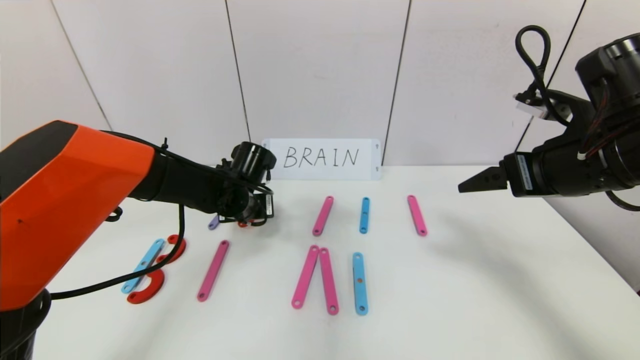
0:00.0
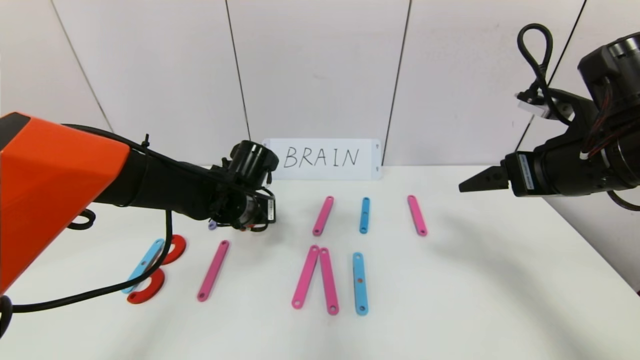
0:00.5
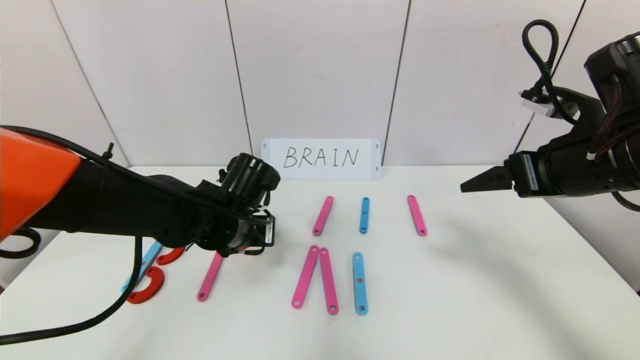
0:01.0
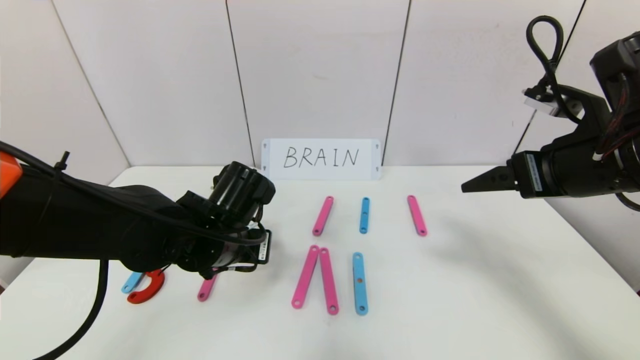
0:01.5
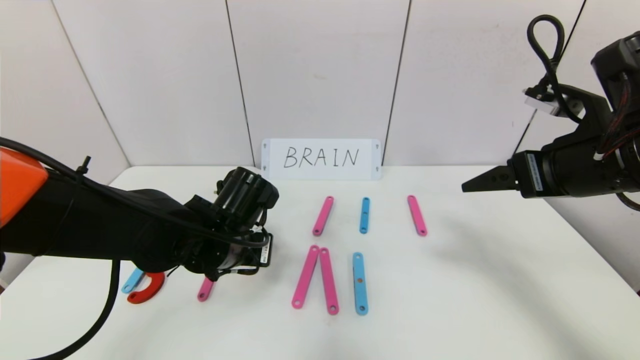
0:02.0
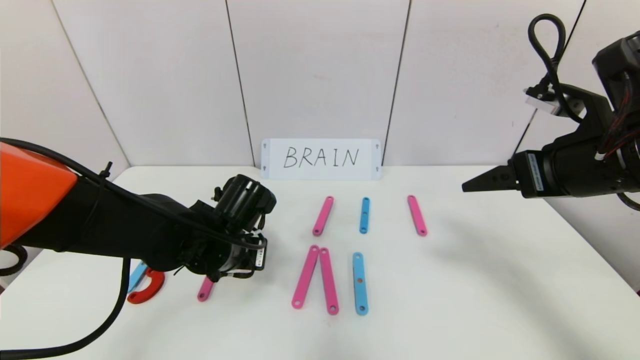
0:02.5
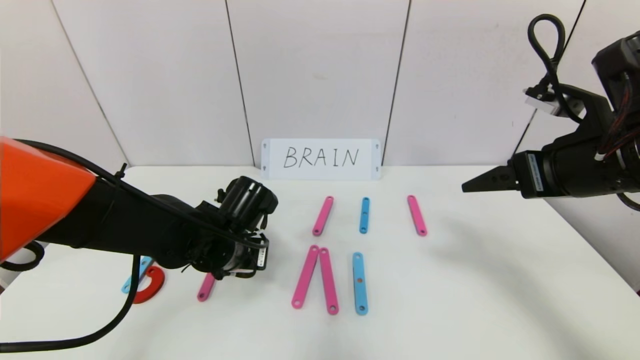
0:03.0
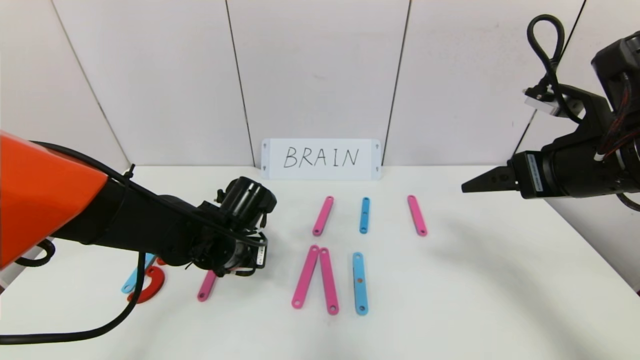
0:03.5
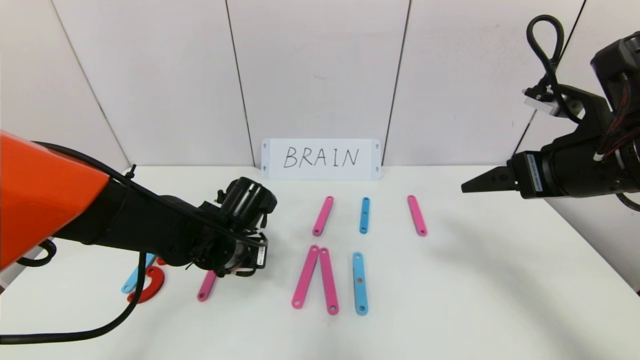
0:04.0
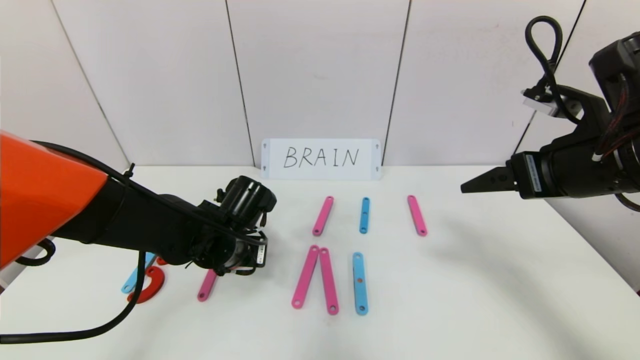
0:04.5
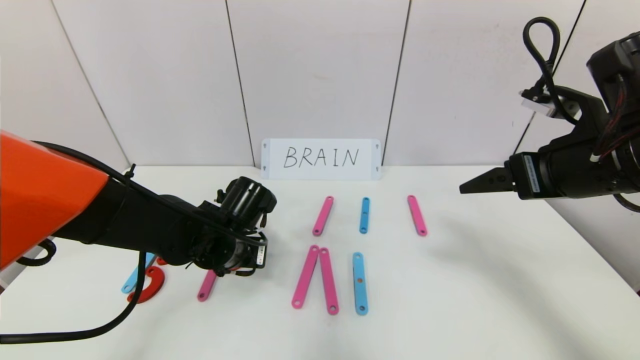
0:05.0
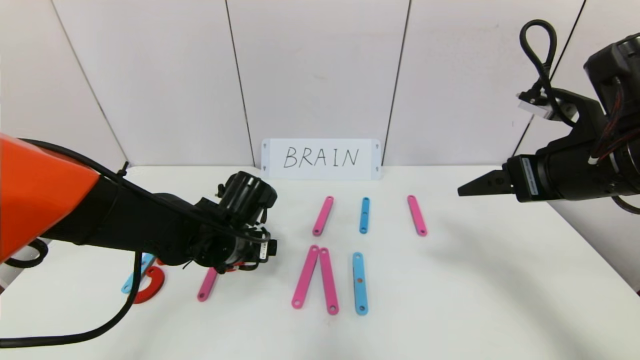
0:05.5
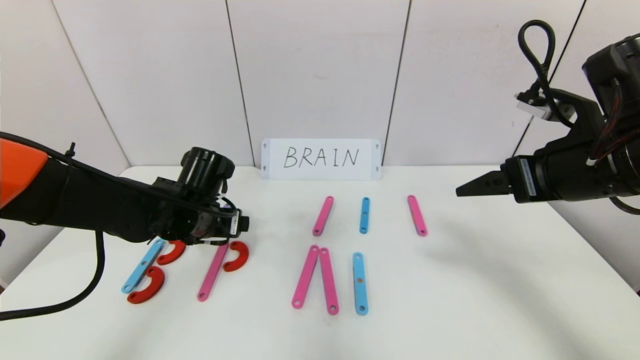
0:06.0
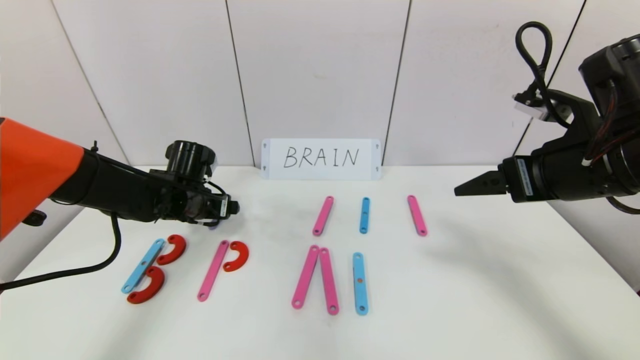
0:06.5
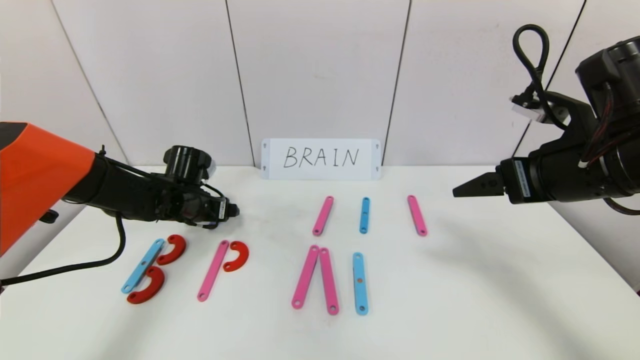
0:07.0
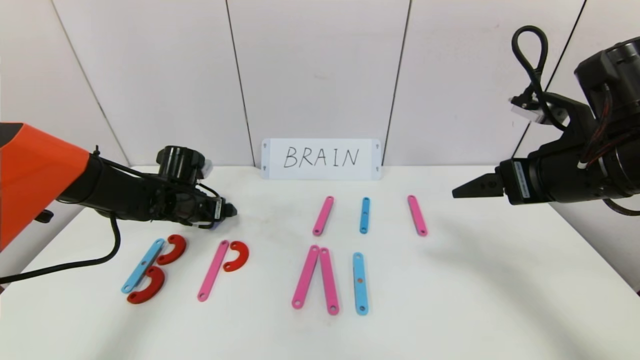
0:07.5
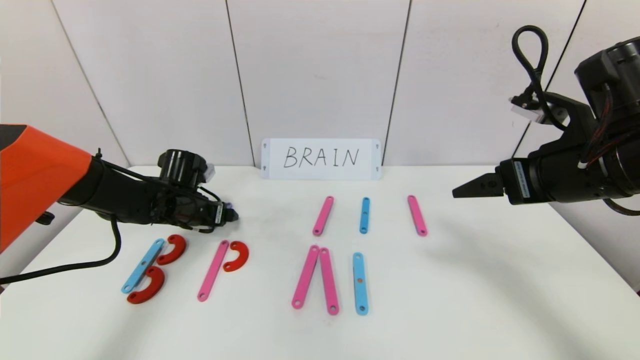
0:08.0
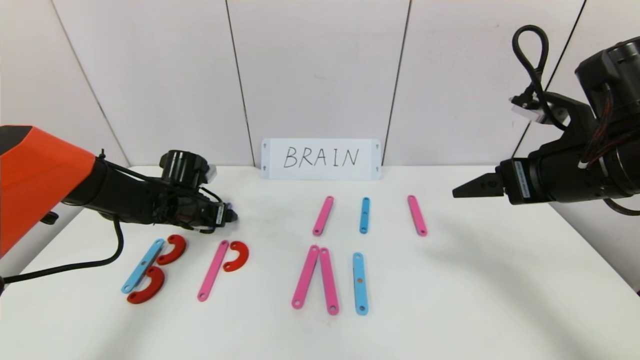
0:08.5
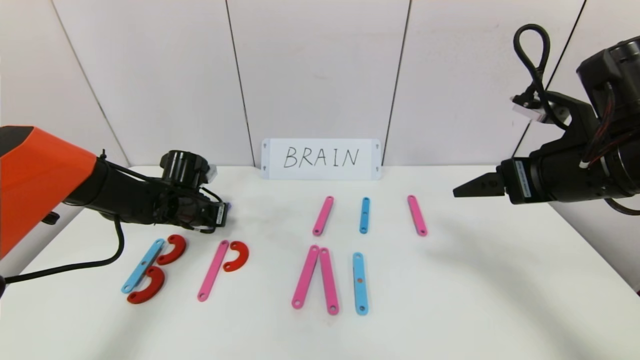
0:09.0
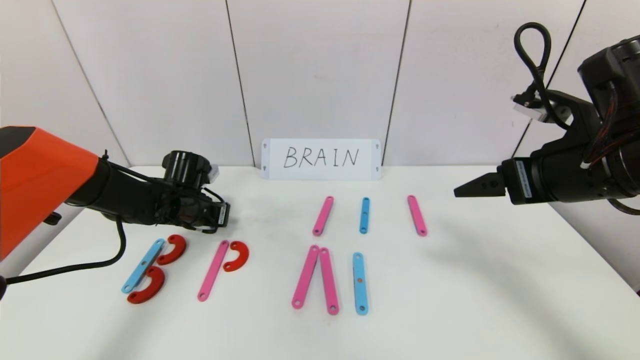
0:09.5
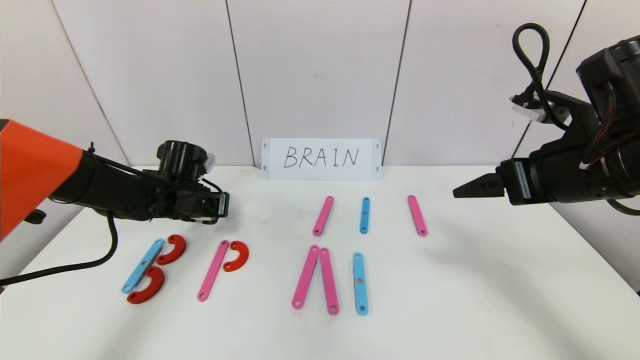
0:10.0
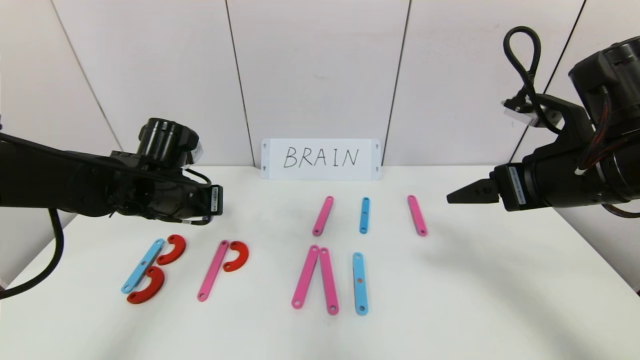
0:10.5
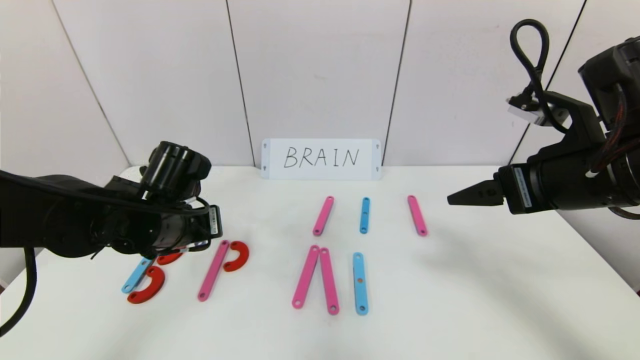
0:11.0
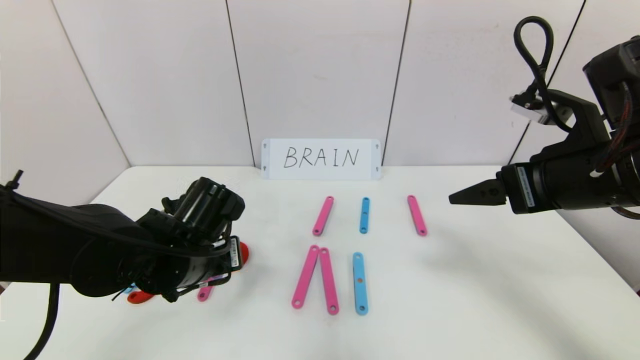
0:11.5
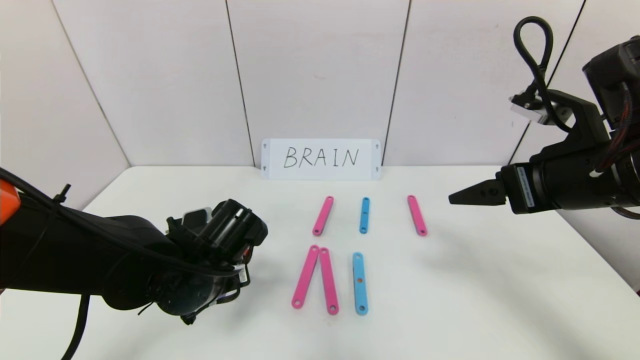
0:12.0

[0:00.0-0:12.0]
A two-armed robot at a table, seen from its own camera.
Task of the whole recording: rearrange the word baai as brain.
0:00.0 to 0:02.0: The left gripper shifts about 10 cm backward.
0:02.0 to 0:04.0: The grippers make only small movements.
0:04.0 to 0:06.0: The left gripper goes approximately 5 cm to the left, and opens.
0:06.0 to 0:08.0: The left gripper shifts about 10 cm forward and to the left.
0:08.0 to 0:10.0: The left gripper closes.
0:10.0 to 0:12.0: The left gripper heads backward and to the right, covering roughly 20 cm.

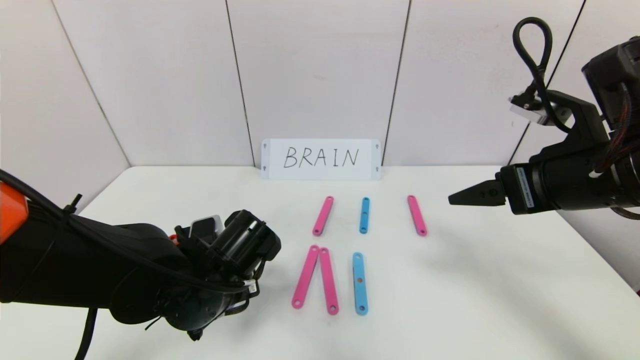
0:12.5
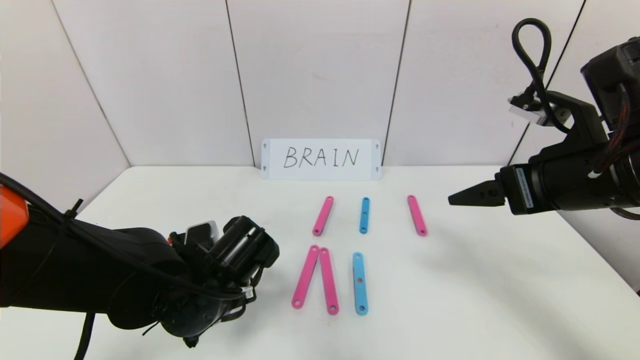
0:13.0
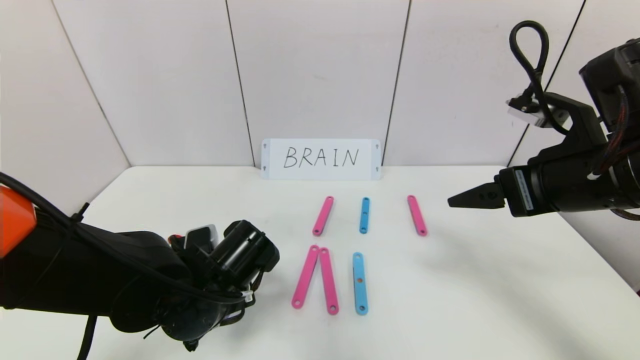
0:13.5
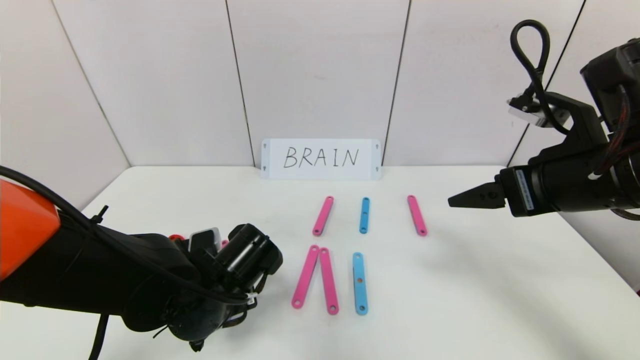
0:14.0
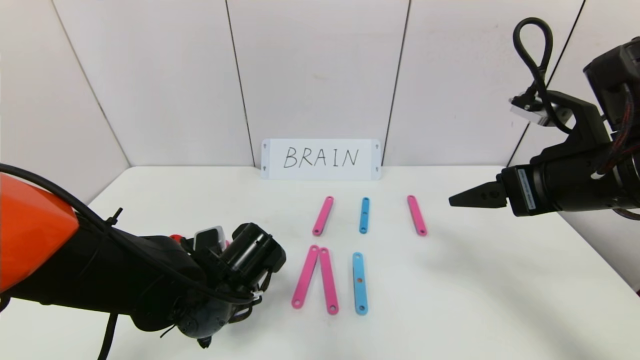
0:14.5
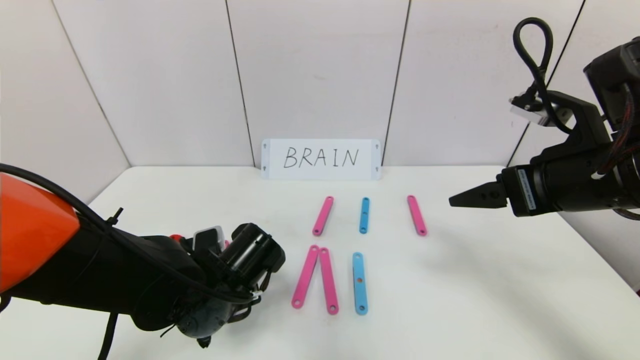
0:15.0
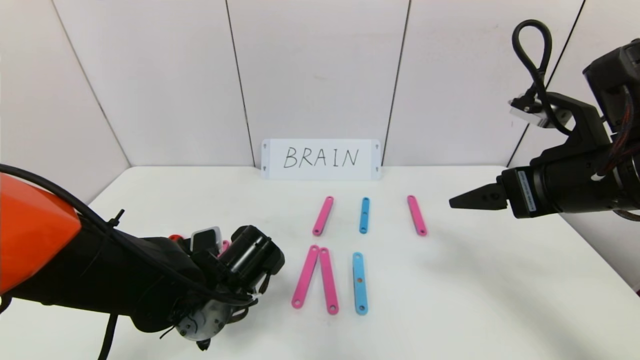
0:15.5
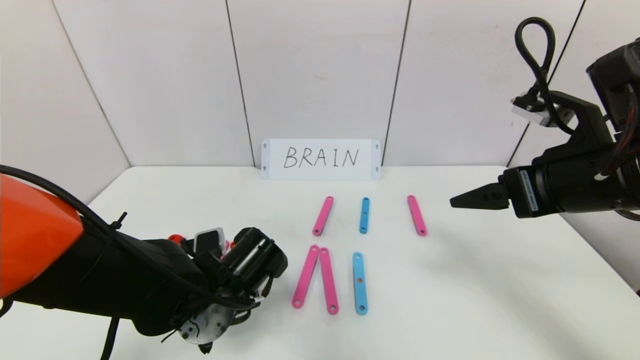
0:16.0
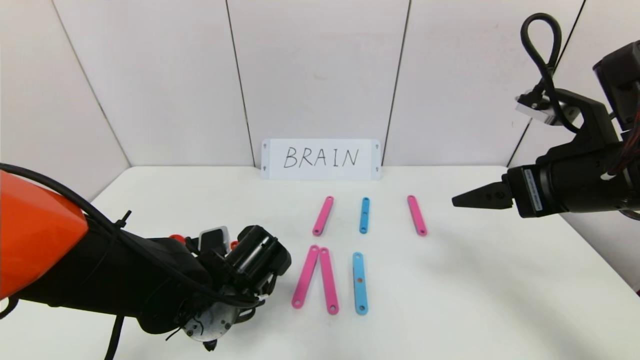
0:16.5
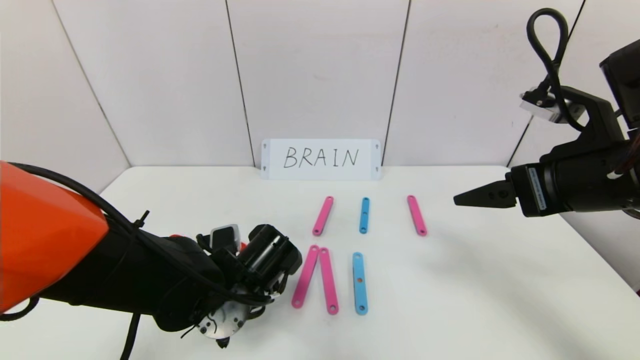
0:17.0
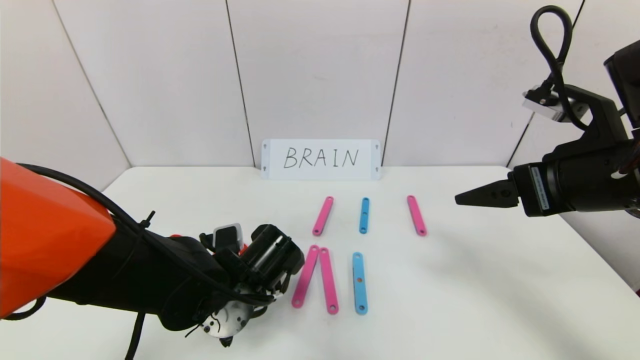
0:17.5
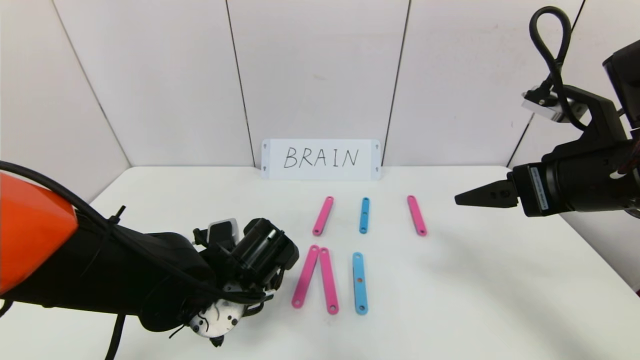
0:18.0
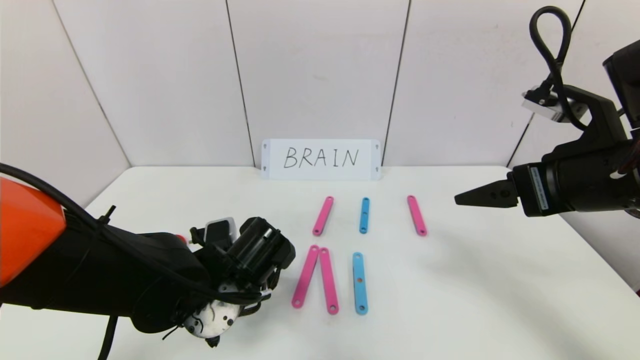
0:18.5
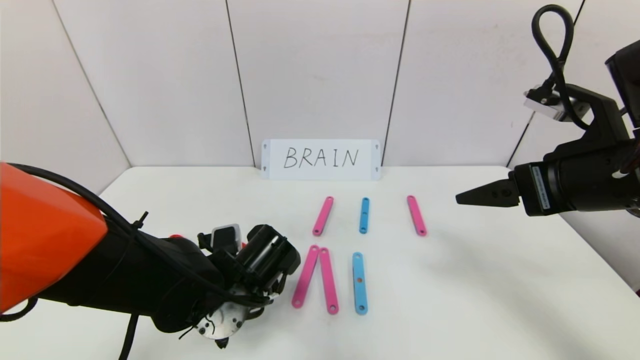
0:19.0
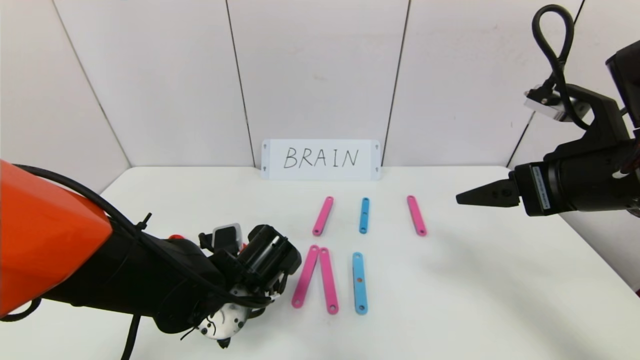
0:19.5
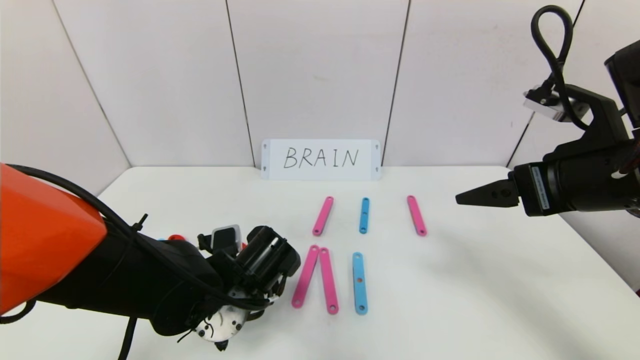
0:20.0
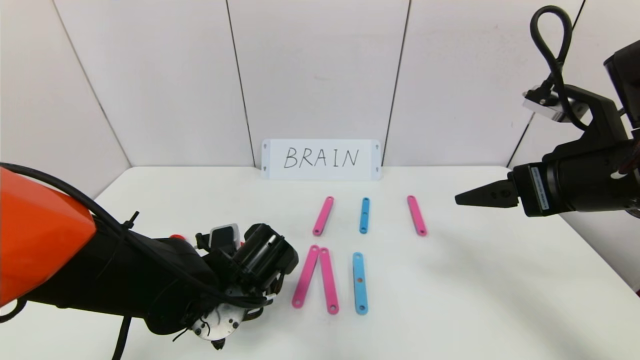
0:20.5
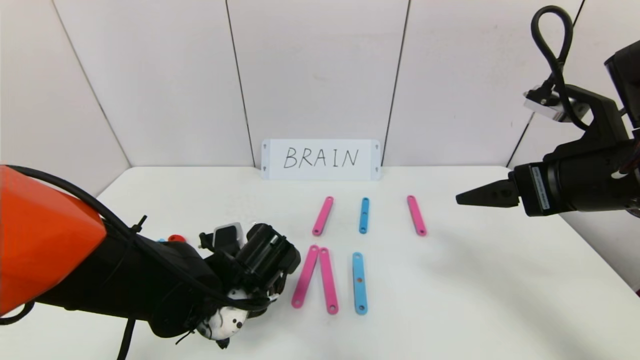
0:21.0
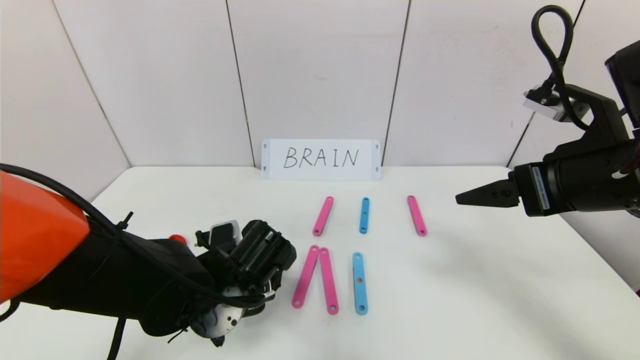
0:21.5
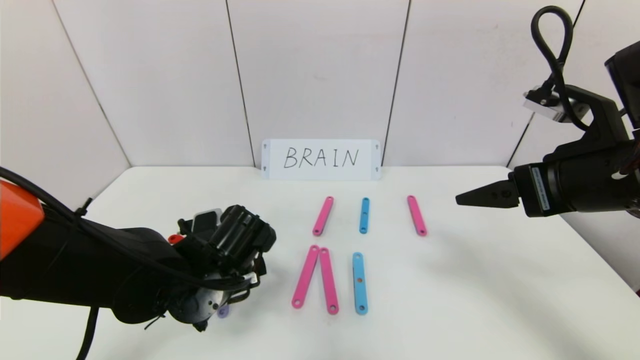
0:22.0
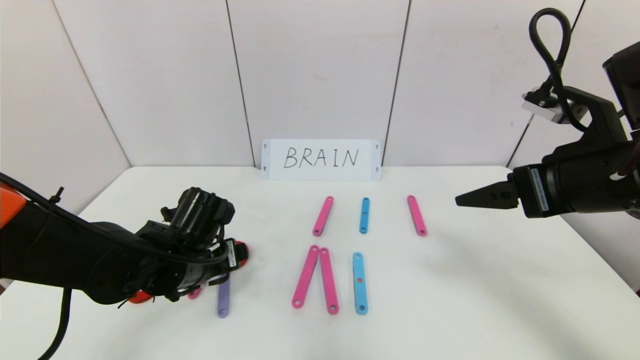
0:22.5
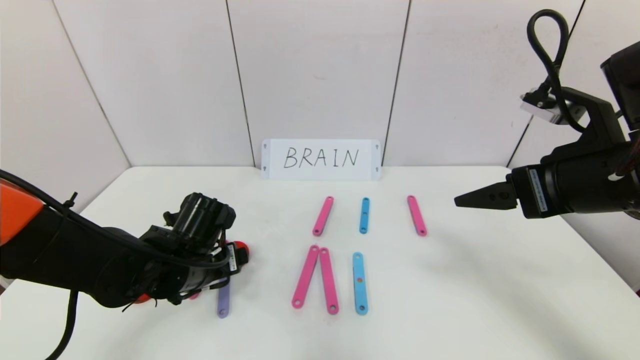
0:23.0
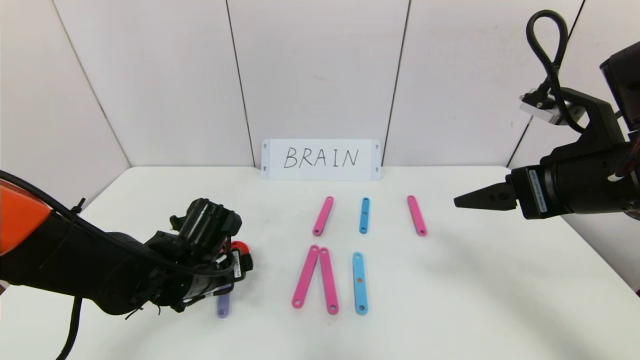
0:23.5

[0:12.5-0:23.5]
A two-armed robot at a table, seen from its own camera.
Task of the whole recording: rearrange the word baai as brain.
Step, 0:12.5 to 0:21.5: Place the character R between first character B and third character A.
0:12.5 to 0:14.5: The grippers make only small movements.
0:14.5 to 0:16.0: Both grippers stay put.
0:16.0 to 0:18.0: The left gripper opens up.
0:18.0 to 0:20.0: The grippers make only small movements.
0:20.0 to 0:21.5: Both grippers stay about where they are.
0:21.5 to 0:23.5: The left gripper shifts some 5 cm to the left.
